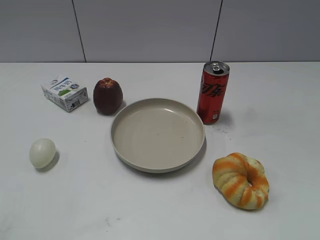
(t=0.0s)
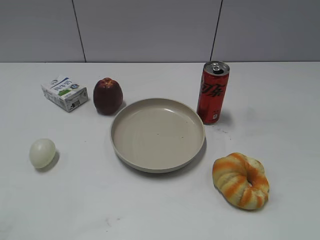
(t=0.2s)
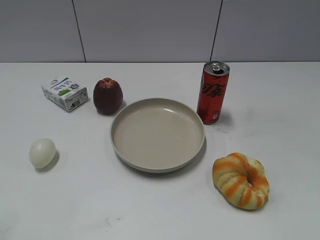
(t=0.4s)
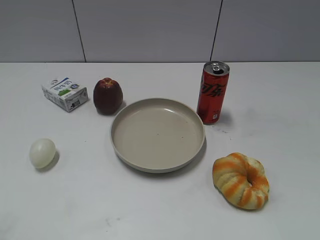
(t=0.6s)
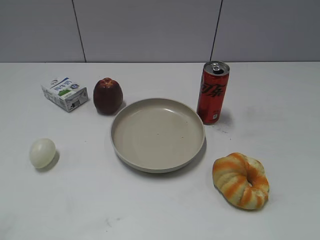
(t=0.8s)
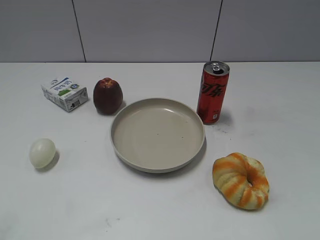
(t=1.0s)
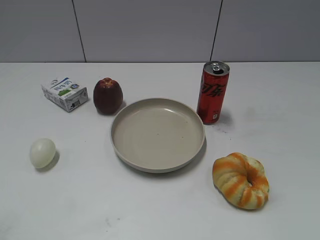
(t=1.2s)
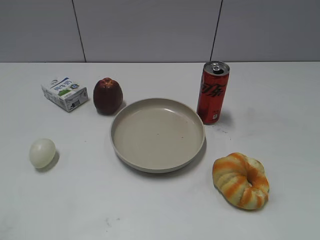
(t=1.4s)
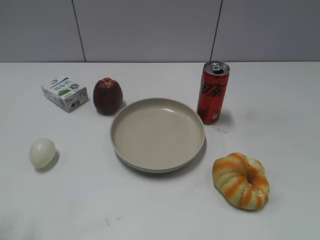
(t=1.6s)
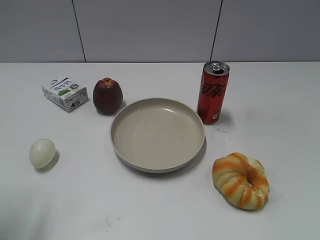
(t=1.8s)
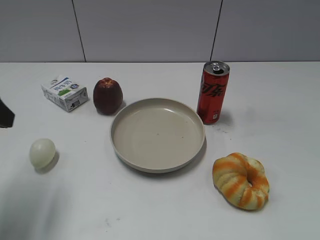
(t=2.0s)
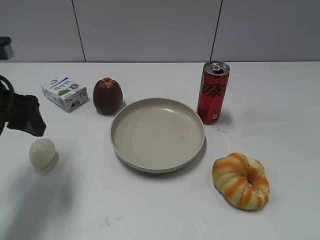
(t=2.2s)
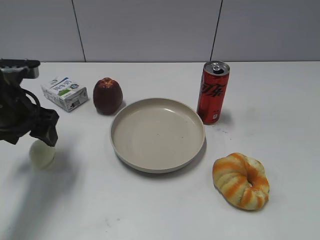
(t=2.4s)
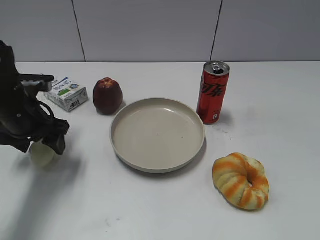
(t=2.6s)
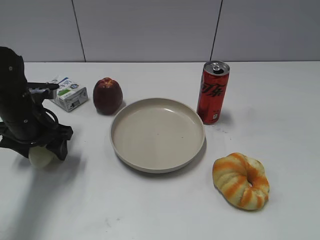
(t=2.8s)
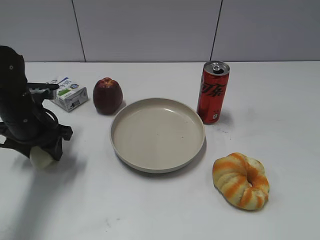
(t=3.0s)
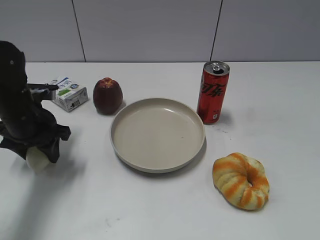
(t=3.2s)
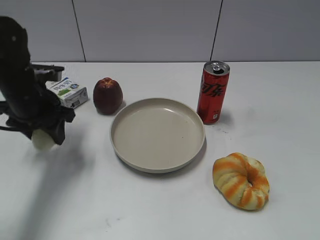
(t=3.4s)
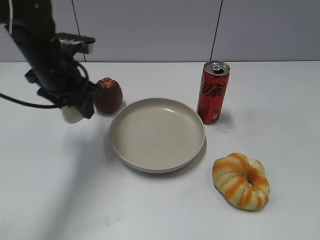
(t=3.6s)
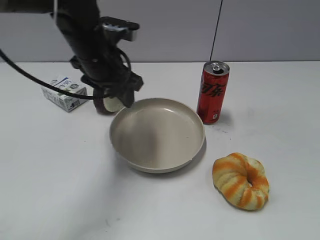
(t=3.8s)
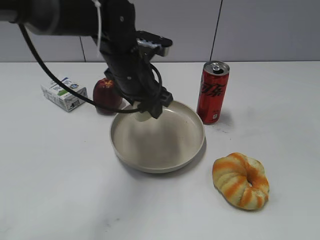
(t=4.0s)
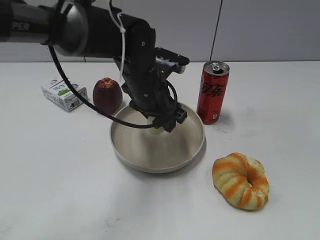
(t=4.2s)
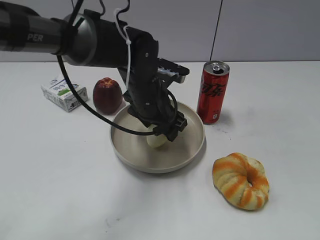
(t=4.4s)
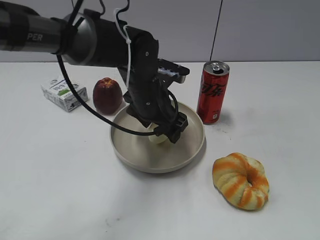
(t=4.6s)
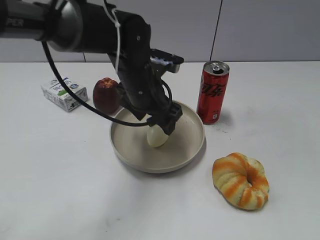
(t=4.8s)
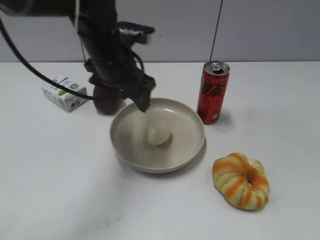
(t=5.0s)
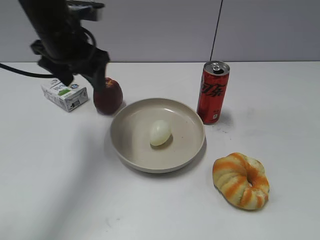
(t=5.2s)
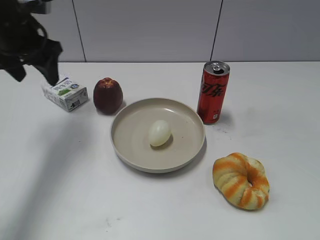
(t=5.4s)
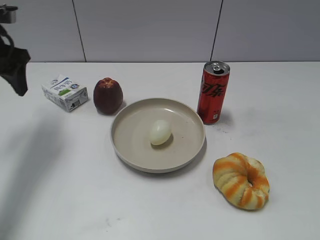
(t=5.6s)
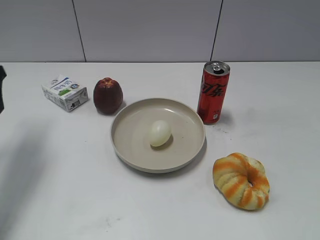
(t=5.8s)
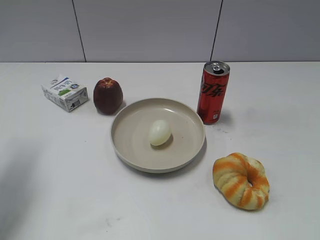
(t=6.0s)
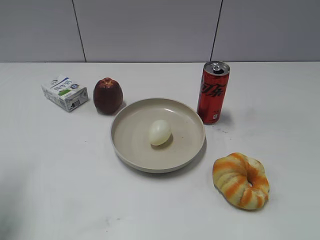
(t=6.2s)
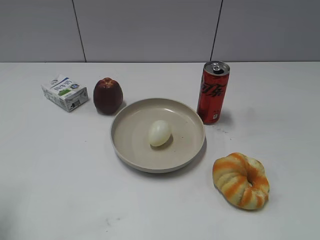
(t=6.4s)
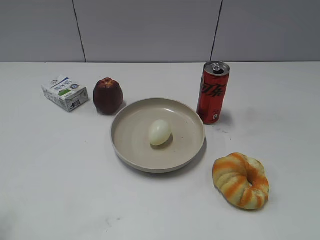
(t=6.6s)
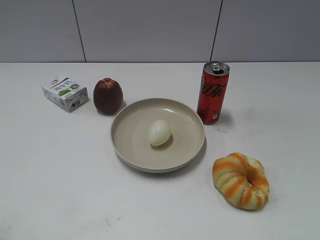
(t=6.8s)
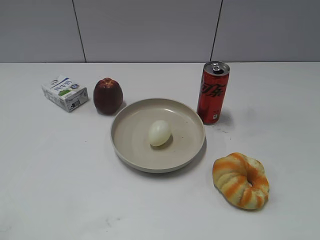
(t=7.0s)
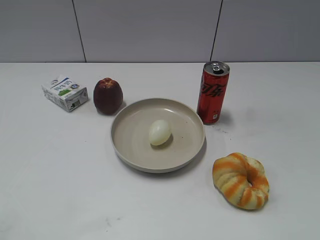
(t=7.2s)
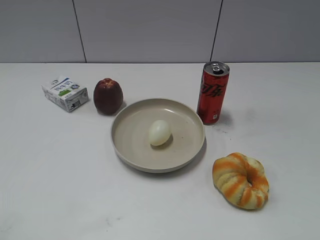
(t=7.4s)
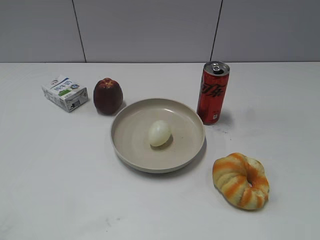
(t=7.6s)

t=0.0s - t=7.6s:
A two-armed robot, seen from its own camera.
Step, t=1.0s - t=3.0s: Grasp the egg with left gripper.
Step, t=3.2s - t=4.8s: Place the egg on the plate with left gripper.
t=1.6s - t=3.0s: The left gripper moves forward and downward, about 30 cm, and closes up.
t=3.0s - t=4.6s: The left gripper moves to the right, about 20 cm, and opens.
t=4.6s - t=6.0s: The left gripper moves to the left, approximately 30 cm.
t=6.0s - t=7.6s: The left gripper shifts about 25 cm backward.
